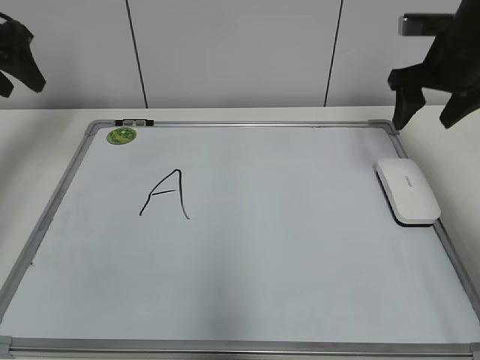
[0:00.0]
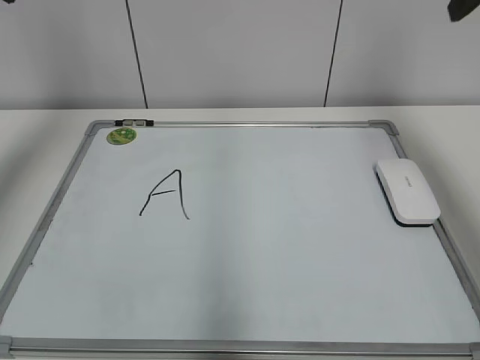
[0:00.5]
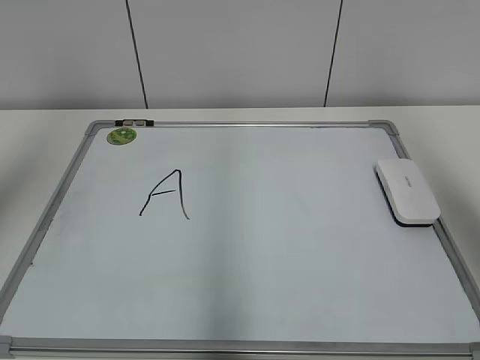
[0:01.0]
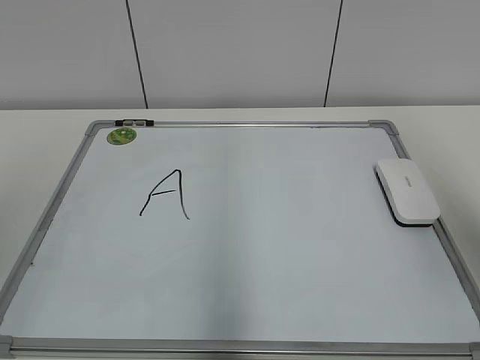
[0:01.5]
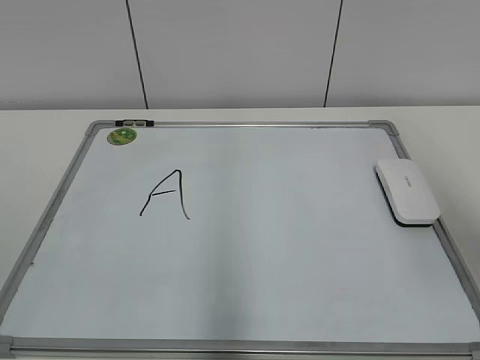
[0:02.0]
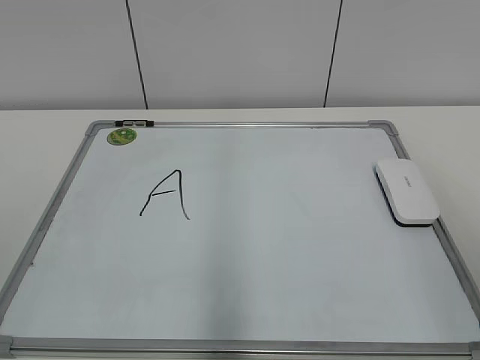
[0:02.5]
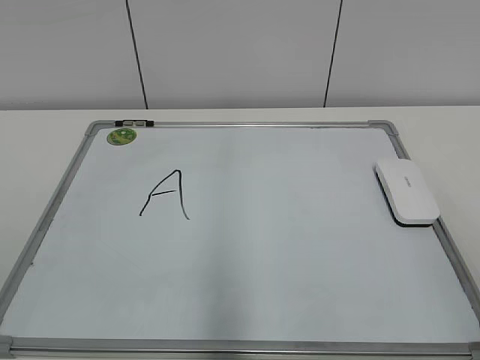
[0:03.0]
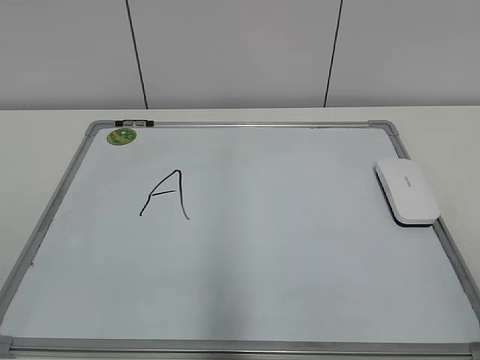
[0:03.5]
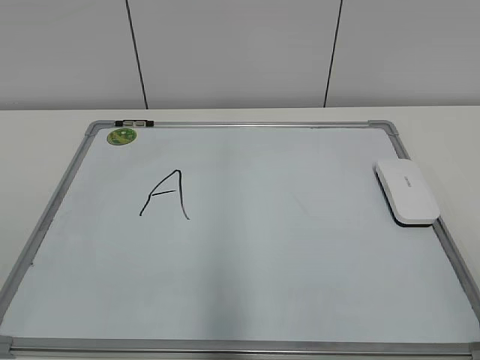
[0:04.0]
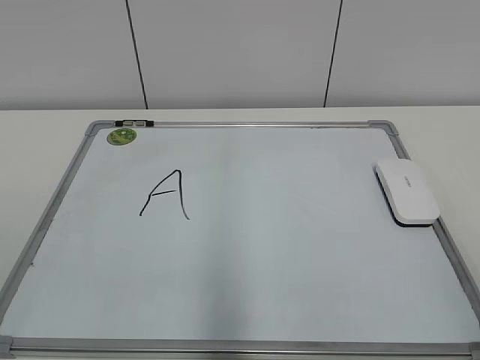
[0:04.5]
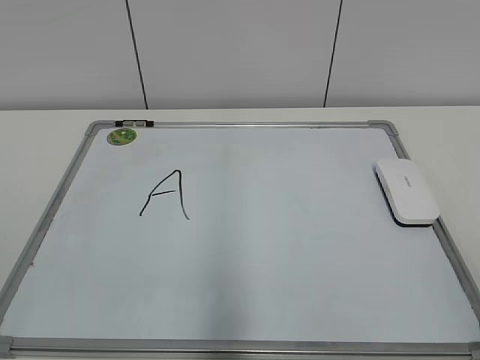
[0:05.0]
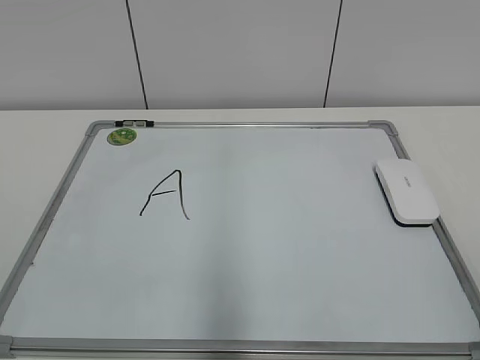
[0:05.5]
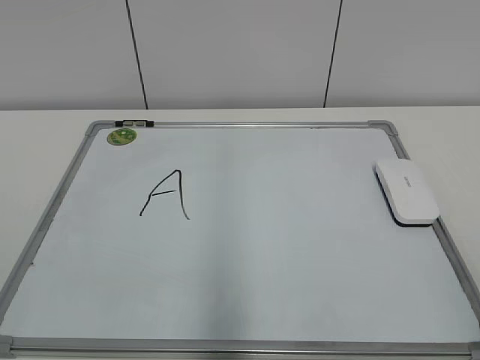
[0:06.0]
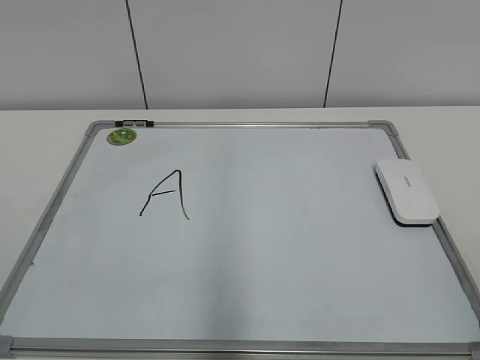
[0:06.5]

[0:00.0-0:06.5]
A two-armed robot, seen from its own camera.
Task of the whole recording: pick up the eraser on the blackboard and erase the letter "a".
0:00.0 to 0:02.0: The left gripper moves backward, approximately 40 cm. Meanwhile the right gripper travels backward and upward by roughly 30 cm.
0:02.0 to 0:04.5: The right gripper goes roughly 20 cm backward and downward.
